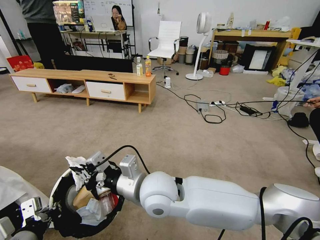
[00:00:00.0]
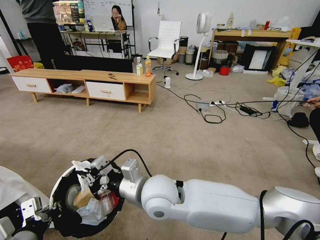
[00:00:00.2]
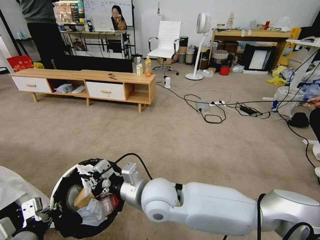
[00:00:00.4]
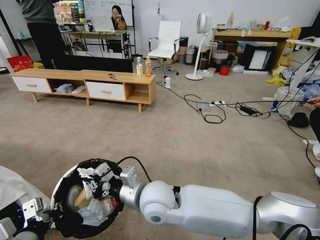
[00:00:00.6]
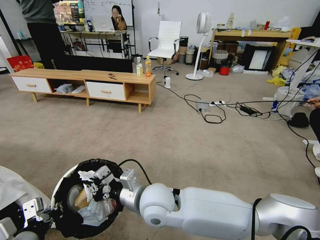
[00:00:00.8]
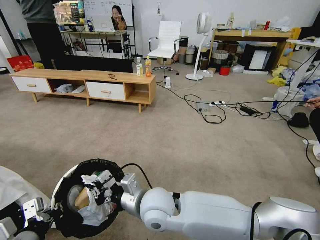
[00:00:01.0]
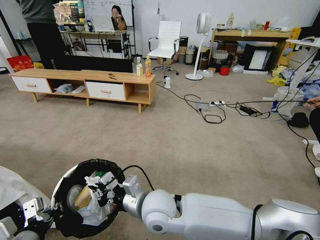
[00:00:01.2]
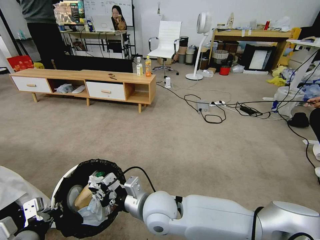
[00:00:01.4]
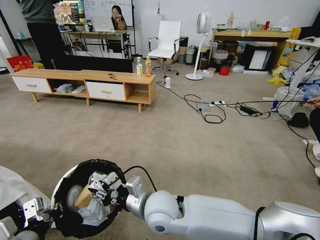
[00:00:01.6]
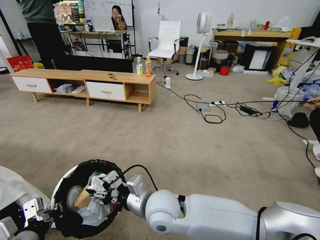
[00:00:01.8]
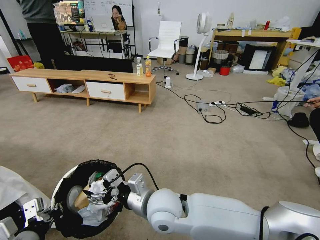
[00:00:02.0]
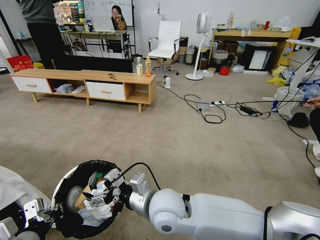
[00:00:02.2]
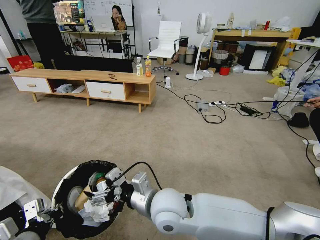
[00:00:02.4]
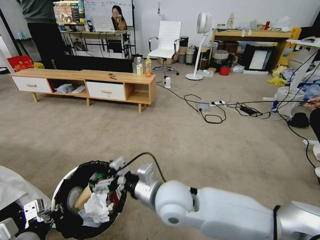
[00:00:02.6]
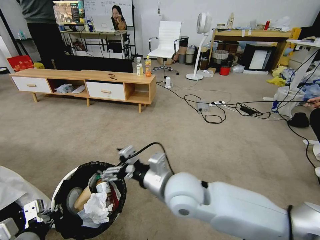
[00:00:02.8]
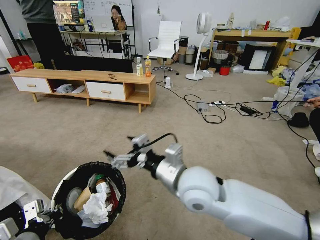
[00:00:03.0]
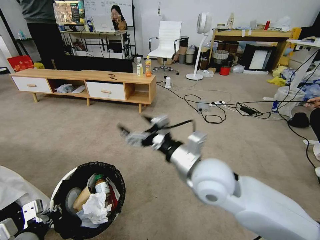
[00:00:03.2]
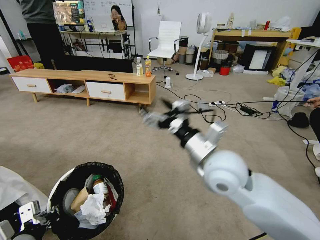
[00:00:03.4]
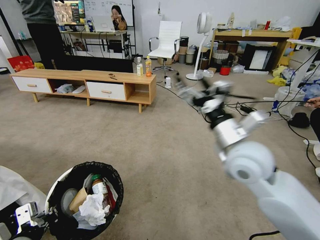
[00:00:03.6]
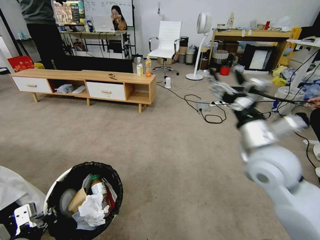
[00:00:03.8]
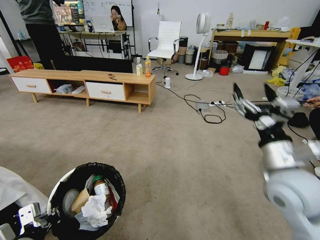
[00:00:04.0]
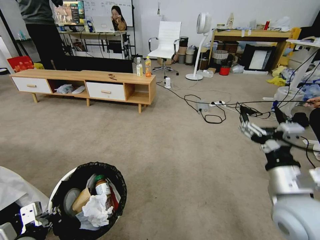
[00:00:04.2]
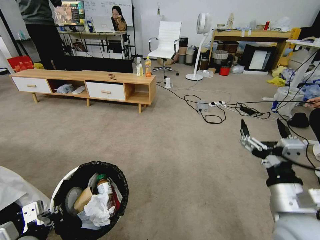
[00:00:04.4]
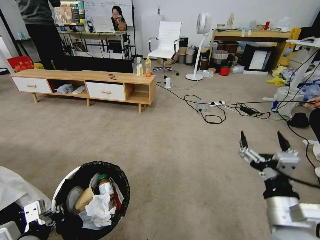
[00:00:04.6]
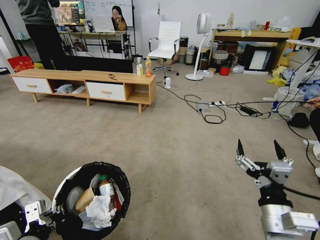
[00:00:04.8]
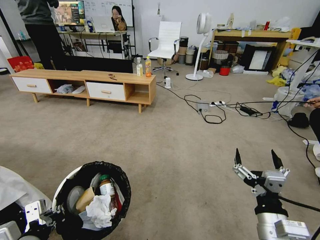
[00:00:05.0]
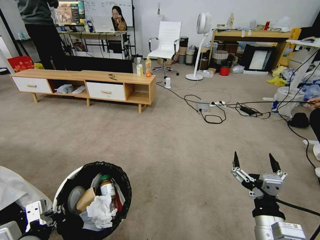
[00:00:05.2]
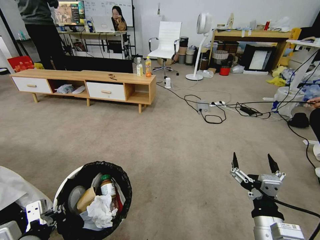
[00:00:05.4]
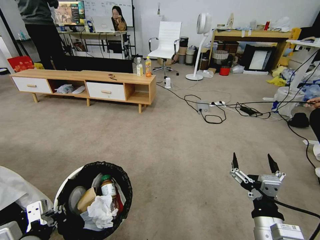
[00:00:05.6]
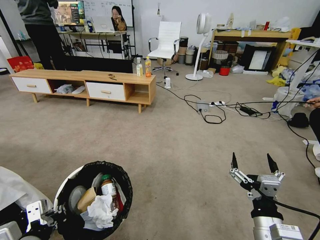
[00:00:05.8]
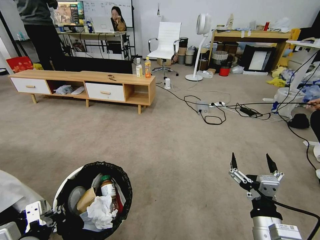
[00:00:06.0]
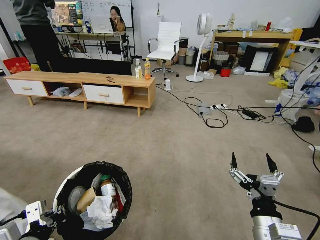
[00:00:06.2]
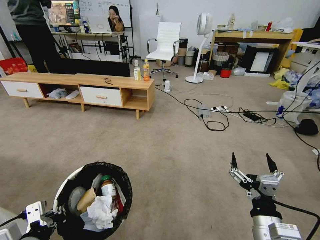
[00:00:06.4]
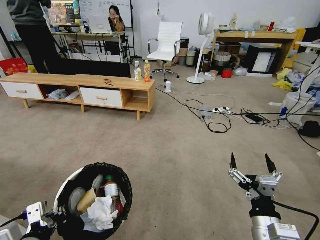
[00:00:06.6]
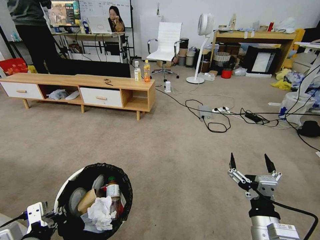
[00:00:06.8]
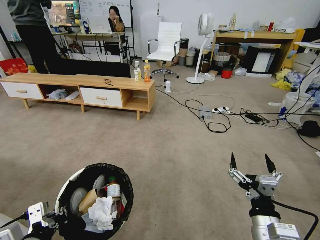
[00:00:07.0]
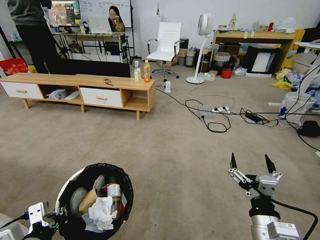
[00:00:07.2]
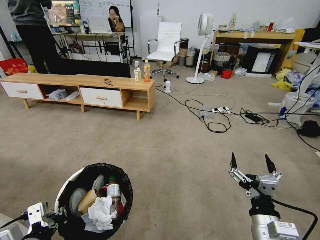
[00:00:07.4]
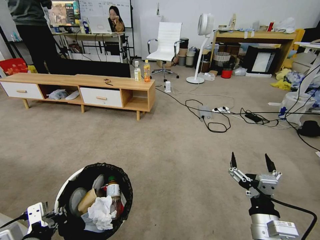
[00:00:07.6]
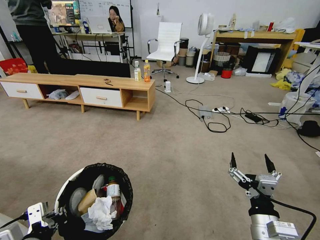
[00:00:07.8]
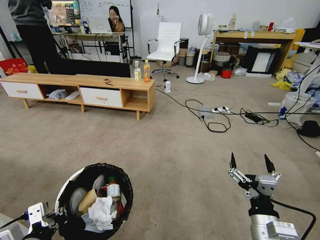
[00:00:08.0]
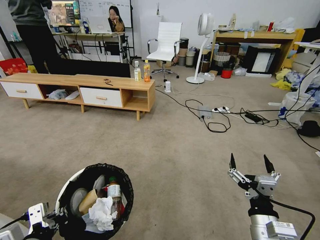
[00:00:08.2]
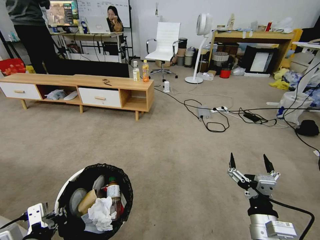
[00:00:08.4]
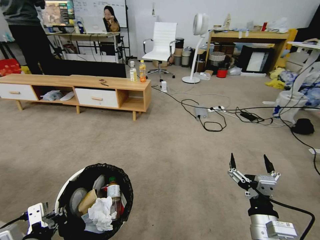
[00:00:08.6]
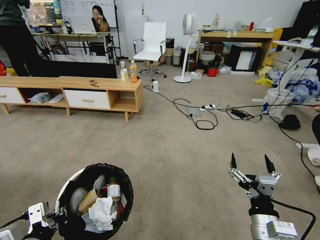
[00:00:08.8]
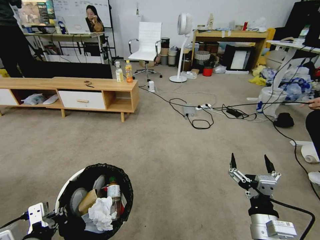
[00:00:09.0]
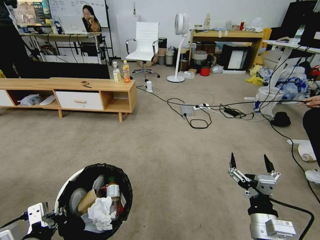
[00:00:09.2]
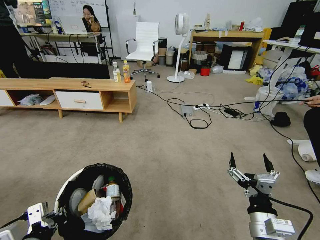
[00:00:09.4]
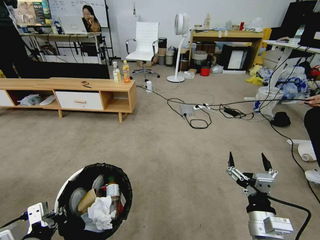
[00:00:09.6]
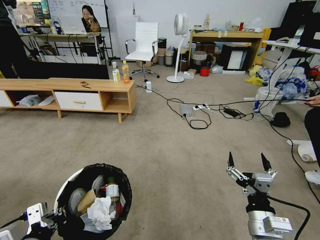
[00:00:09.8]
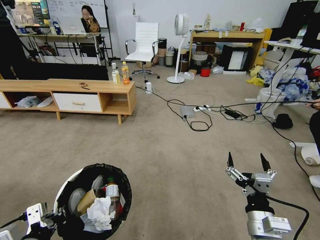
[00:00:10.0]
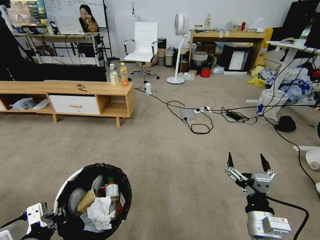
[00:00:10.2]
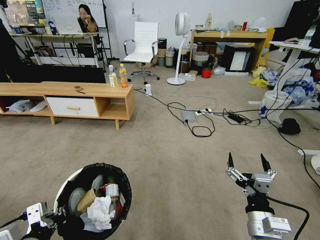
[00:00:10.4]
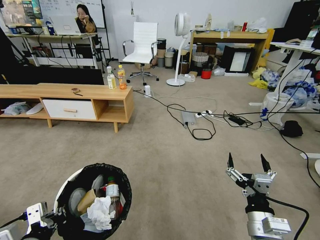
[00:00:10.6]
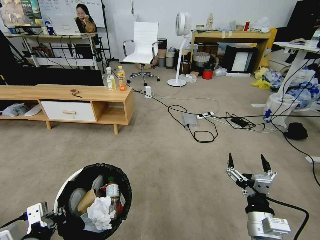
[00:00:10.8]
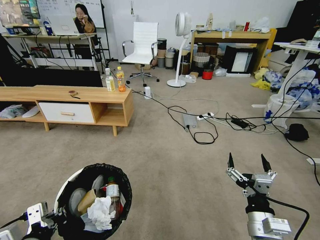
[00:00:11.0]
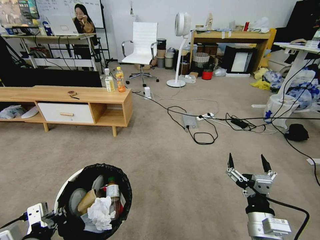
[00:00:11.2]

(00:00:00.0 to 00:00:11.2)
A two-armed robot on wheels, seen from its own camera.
Task of the whole recording: Pick up the trash bin and place the garbage on the floor into it.
00:00:00.0 - 00:00:01.6: The right gripper heads downward, covering about 10 cm.
00:00:01.6 - 00:00:03.2: The right gripper is displaced upward and to the right by roughly 15 cm, and opens.
00:00:03.2 - 00:00:04.8: The right gripper heads to the right, backward and downward, covering about 20 cm.
00:00:06.4 - 00:00:08.0: Both grippers stay put.
